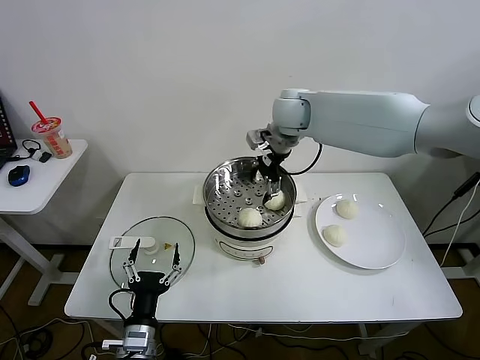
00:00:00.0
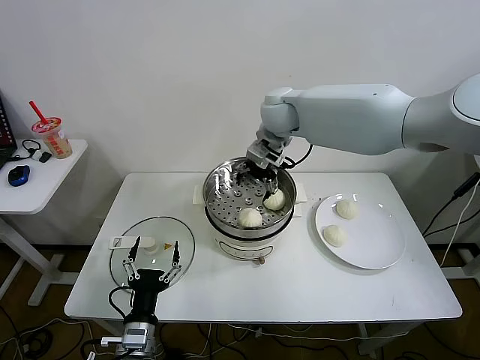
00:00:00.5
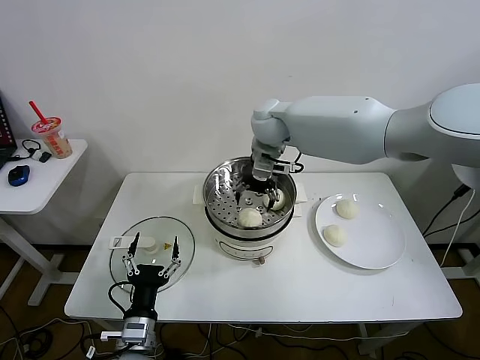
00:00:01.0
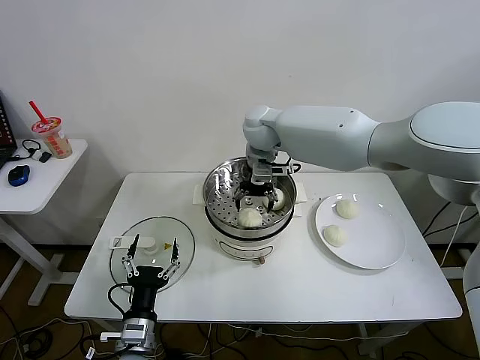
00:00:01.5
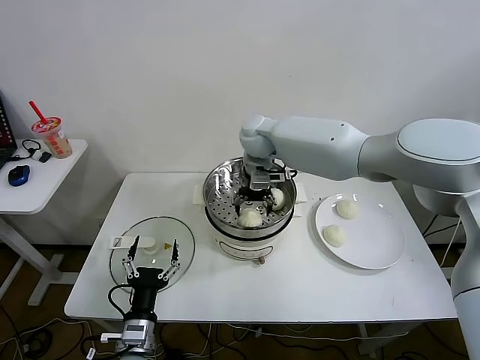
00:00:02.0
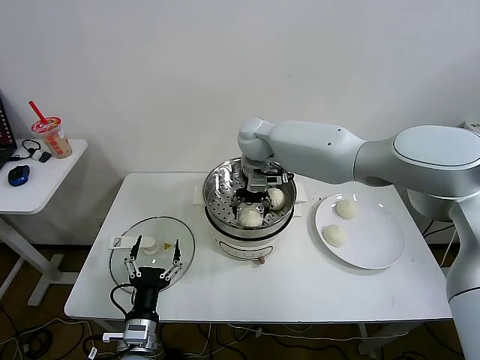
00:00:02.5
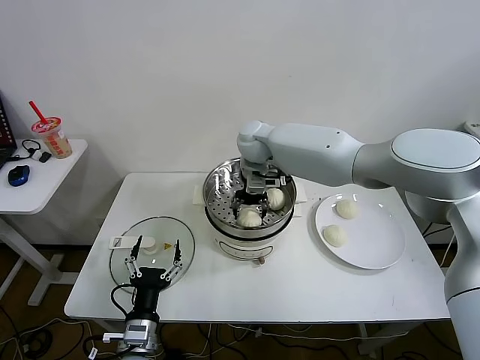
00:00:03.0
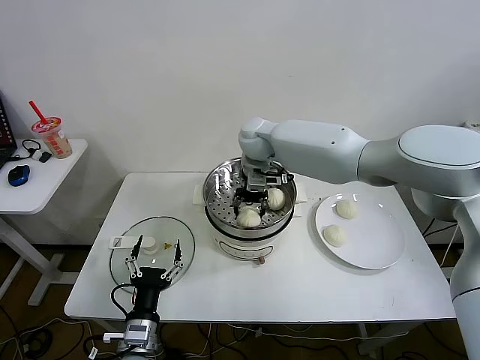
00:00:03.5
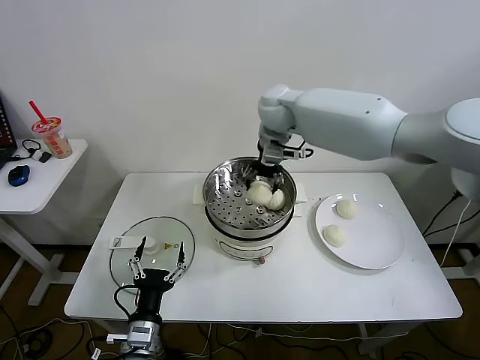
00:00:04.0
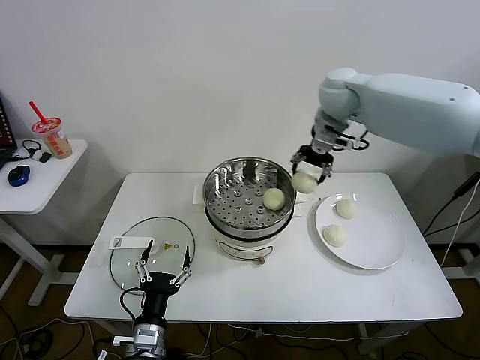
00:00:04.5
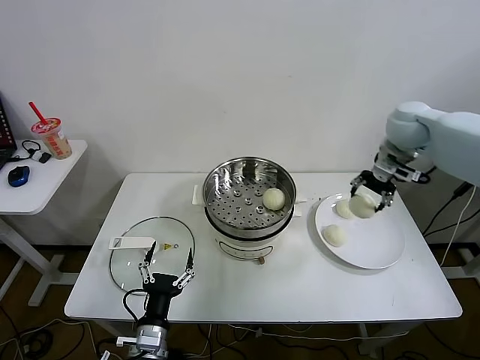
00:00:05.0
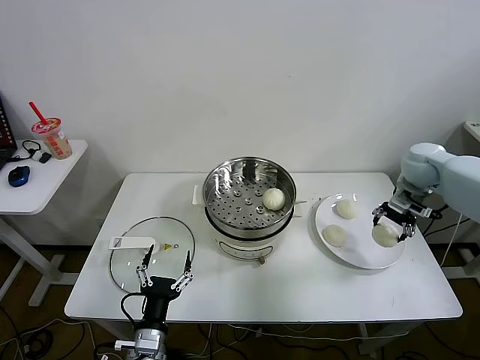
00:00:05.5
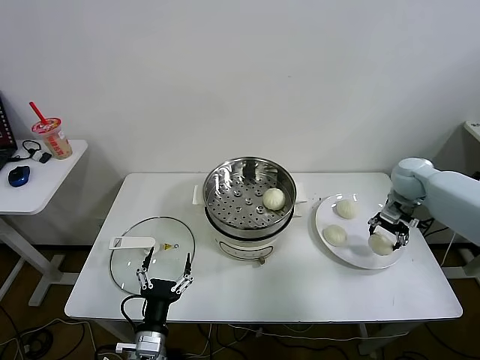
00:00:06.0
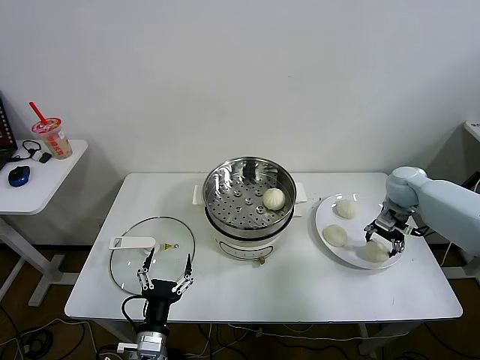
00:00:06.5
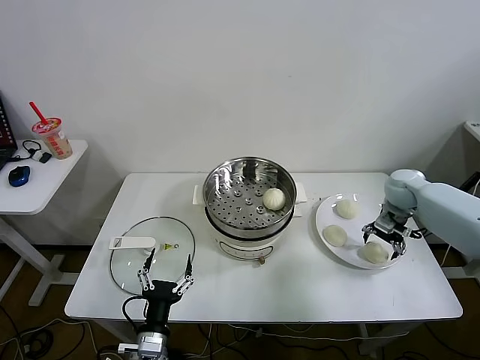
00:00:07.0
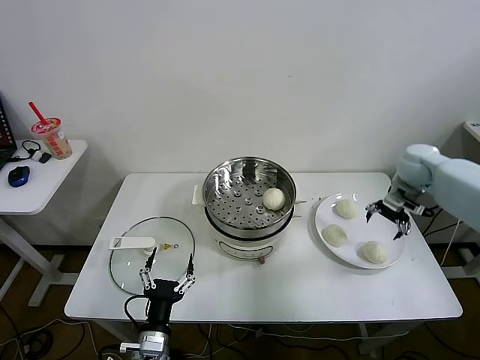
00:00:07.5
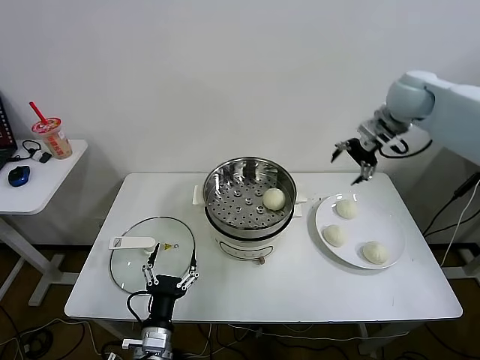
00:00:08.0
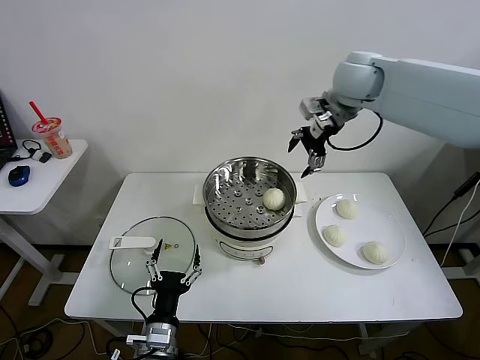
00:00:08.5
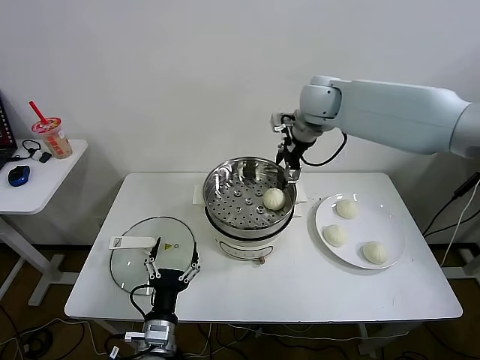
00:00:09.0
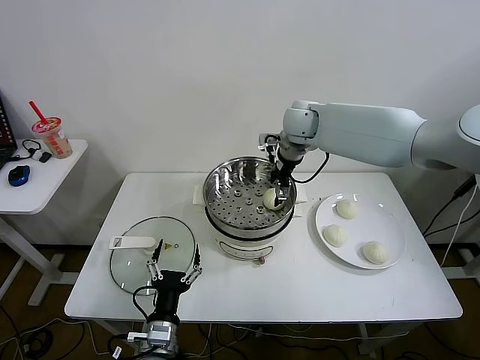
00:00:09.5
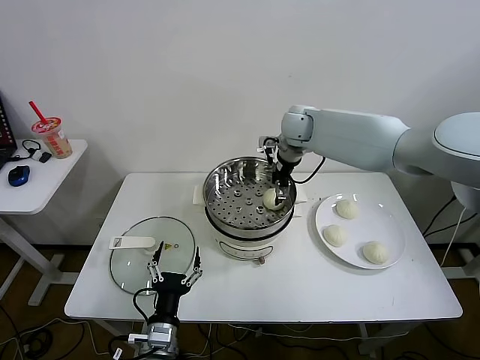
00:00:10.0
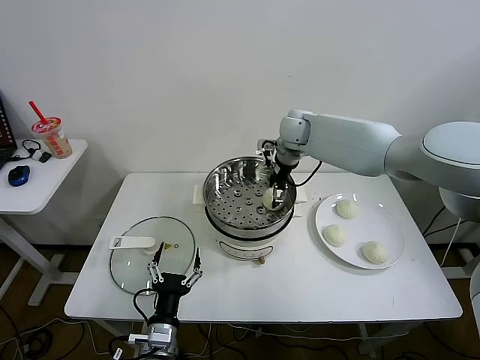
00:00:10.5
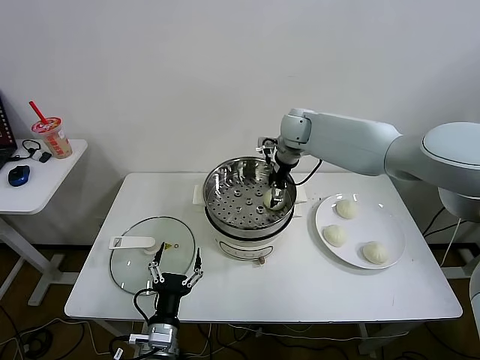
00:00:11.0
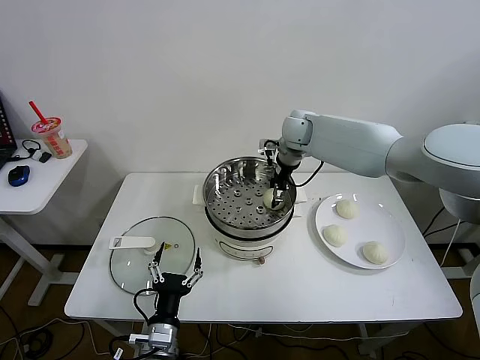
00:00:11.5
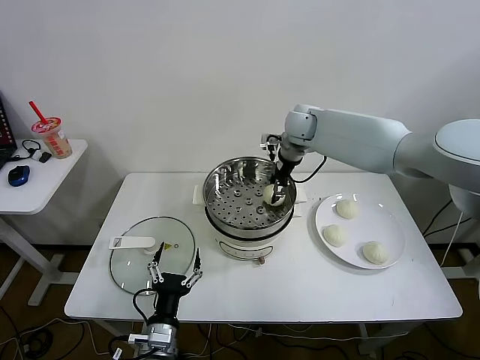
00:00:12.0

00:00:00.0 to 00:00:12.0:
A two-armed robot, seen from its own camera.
Task of the whole recording: take steamed baozi put them in steamer then cover it.
Step, 00:00:00.0 to 00:00:03.0: Grasp the baozi with right gripper.
Step, 00:00:03.5 to 00:00:06.5: Place the baozi on the plate with right gripper.
Step, 00:00:07.0 to 00:00:11.5: Grasp the baozi with right gripper.
00:00:00.0 to 00:00:02.0: The right gripper is displaced downward and to the left by roughly 10 cm.
00:00:02.0 to 00:00:04.0: The right gripper goes about 5 cm upward, and closes.
00:00:04.0 to 00:00:06.0: The right gripper travels to the right and downward by roughly 40 cm.
00:00:06.0 to 00:00:08.0: The right gripper moves upward, some 20 cm, and opens up.
00:00:08.0 to 00:00:10.0: The right gripper shifts some 25 cm to the left and downward.
00:00:10.0 to 00:00:12.0: The right gripper closes up.

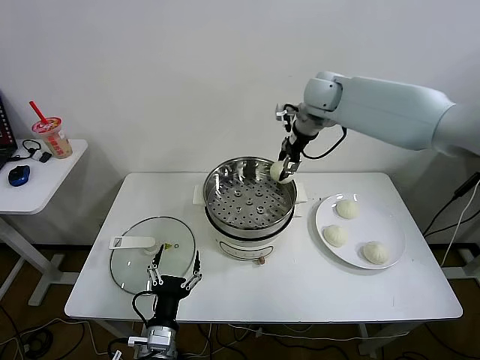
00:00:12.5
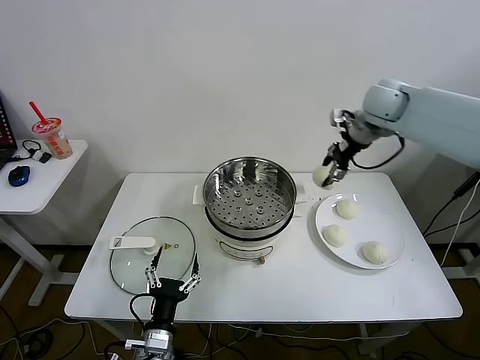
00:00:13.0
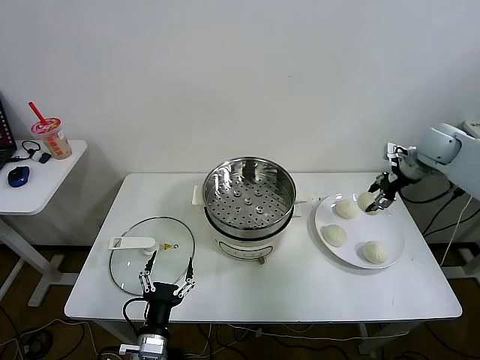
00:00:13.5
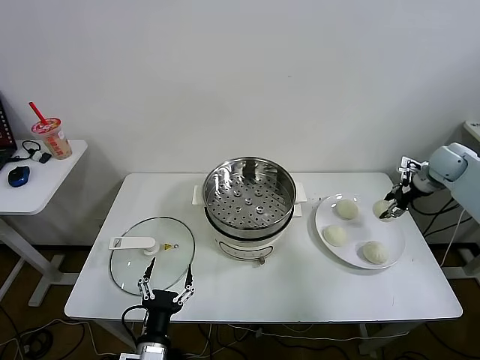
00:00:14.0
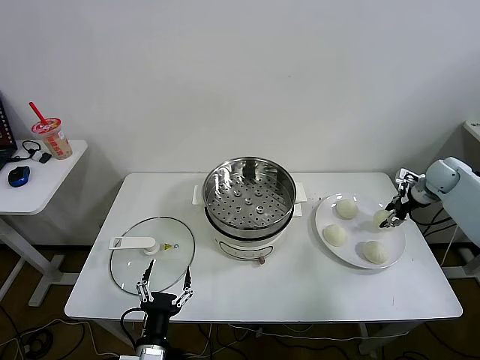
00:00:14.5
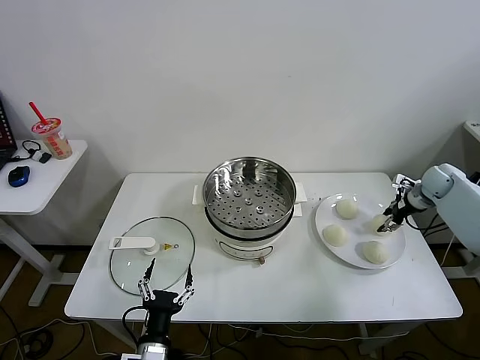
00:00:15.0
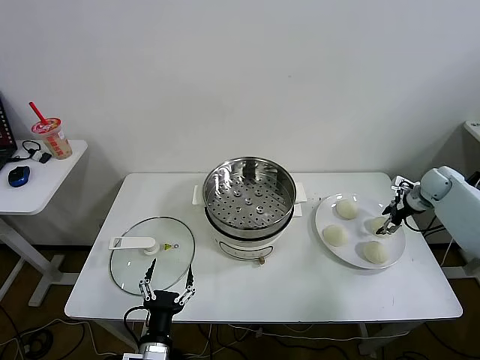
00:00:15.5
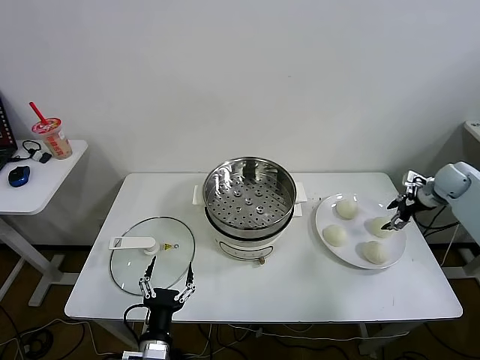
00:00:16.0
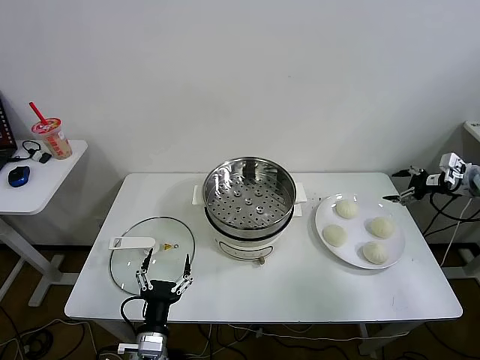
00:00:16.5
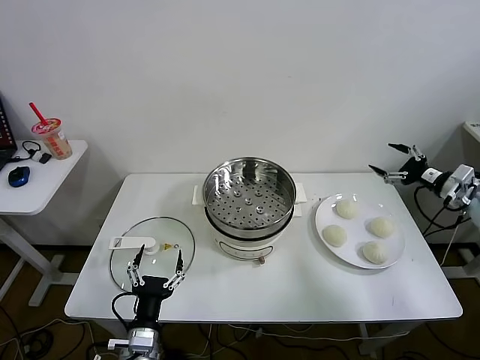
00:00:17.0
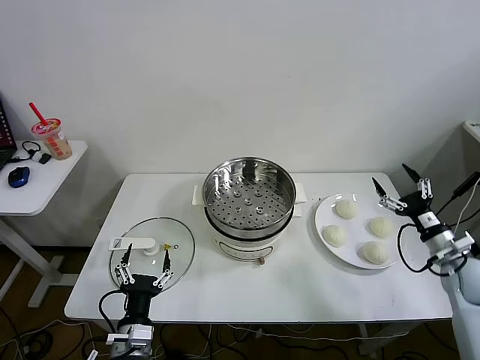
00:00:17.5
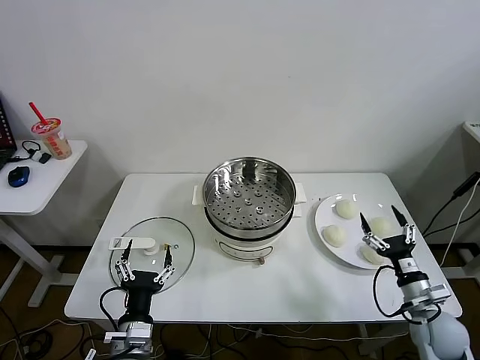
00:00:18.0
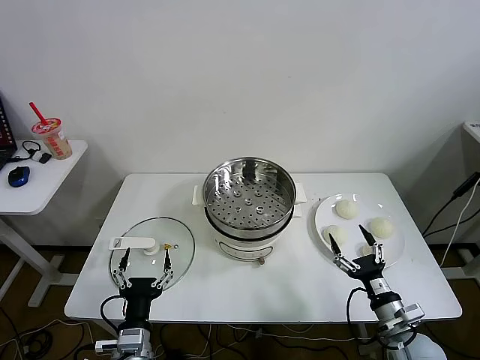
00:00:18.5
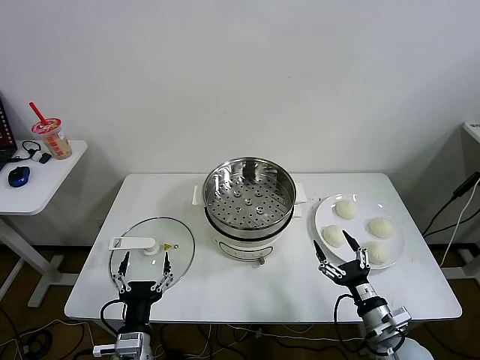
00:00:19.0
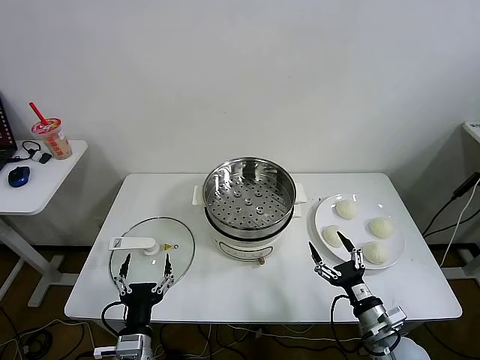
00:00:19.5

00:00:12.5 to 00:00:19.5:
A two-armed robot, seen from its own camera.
Task of the whole recording: take steamed baozi put them in steamer then cover it.
Step, 00:00:12.5 to 00:00:15.0: Place the baozi on the plate with right gripper.
00:00:12.5 to 00:00:14.5: The right gripper is displaced to the right and downward by roughly 40 cm.
00:00:14.5 to 00:00:16.0: The right gripper opens its fingers.
00:00:16.0 to 00:00:17.5: The right gripper travels backward by some 20 cm.
00:00:17.5 to 00:00:19.5: The right gripper goes some 25 cm to the left, backward and downward.
